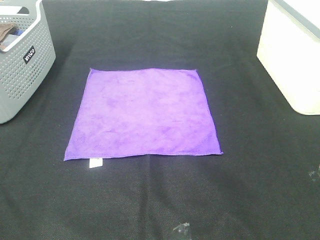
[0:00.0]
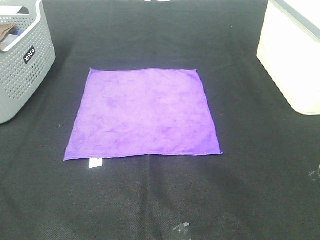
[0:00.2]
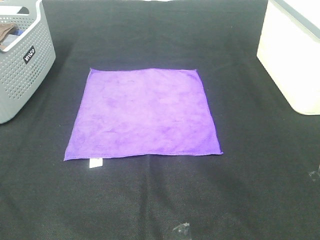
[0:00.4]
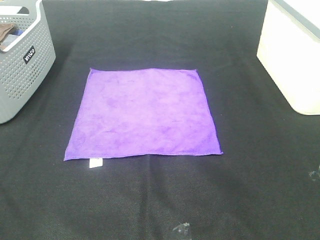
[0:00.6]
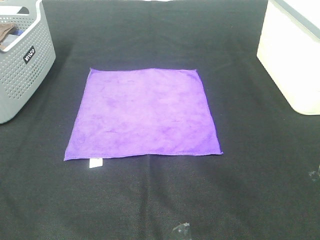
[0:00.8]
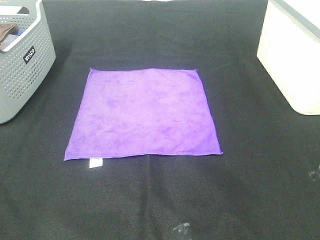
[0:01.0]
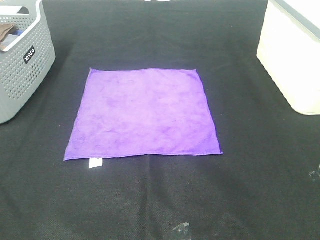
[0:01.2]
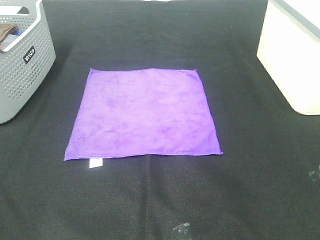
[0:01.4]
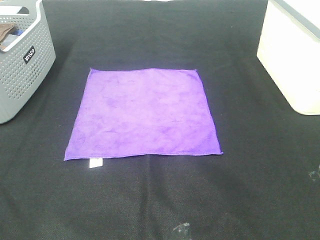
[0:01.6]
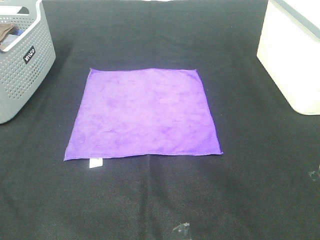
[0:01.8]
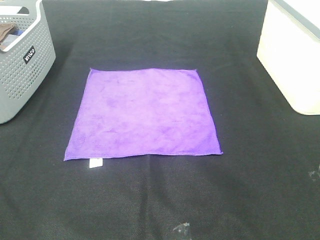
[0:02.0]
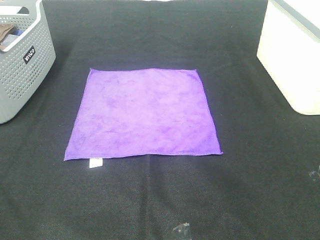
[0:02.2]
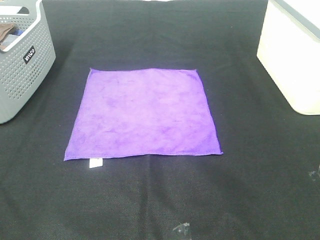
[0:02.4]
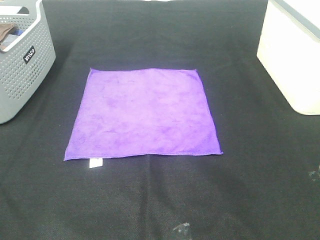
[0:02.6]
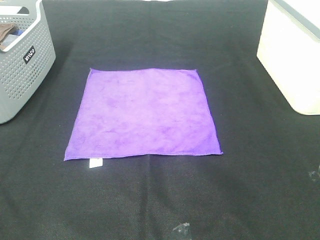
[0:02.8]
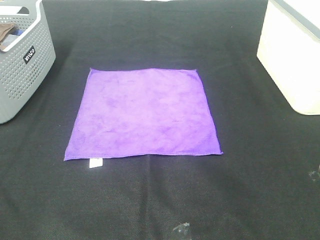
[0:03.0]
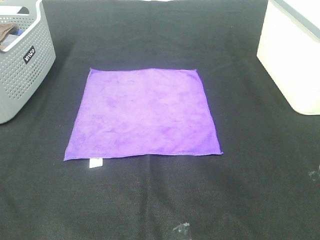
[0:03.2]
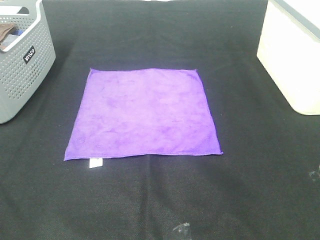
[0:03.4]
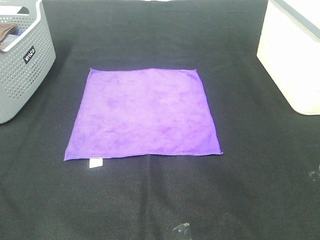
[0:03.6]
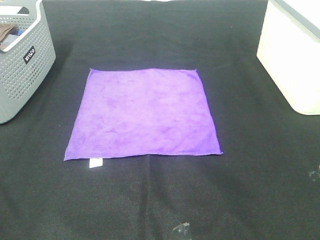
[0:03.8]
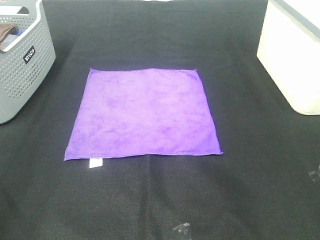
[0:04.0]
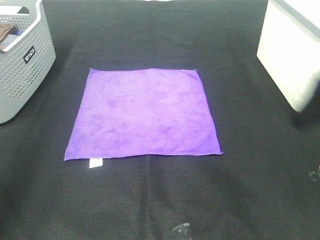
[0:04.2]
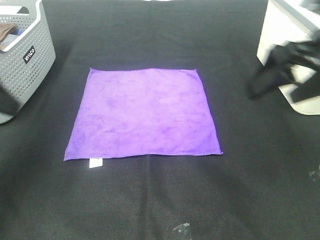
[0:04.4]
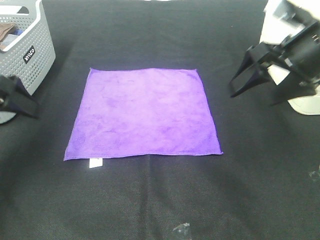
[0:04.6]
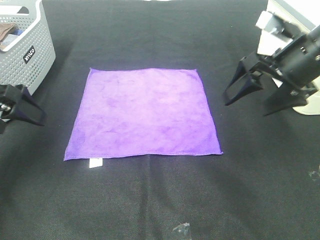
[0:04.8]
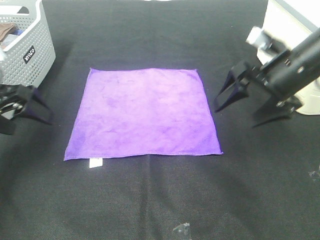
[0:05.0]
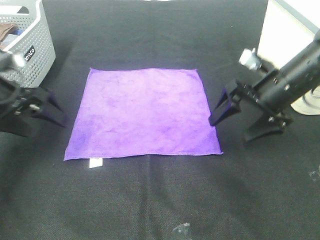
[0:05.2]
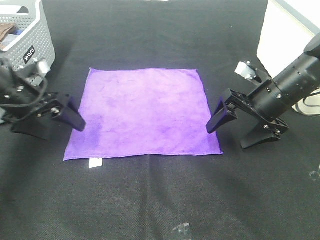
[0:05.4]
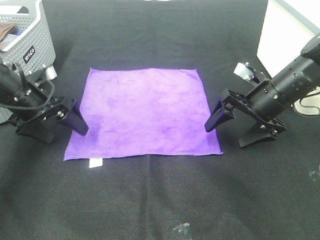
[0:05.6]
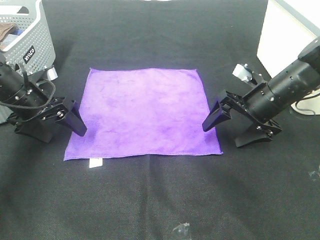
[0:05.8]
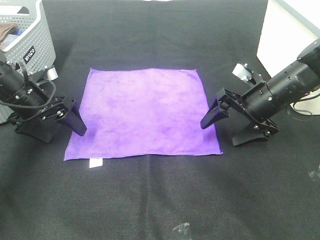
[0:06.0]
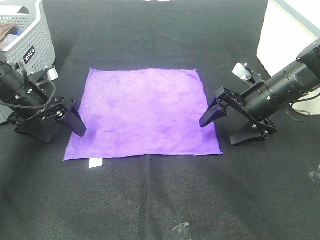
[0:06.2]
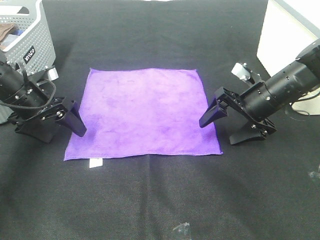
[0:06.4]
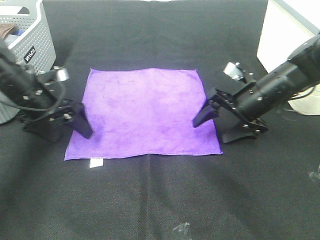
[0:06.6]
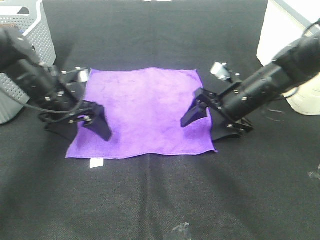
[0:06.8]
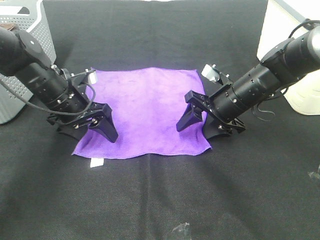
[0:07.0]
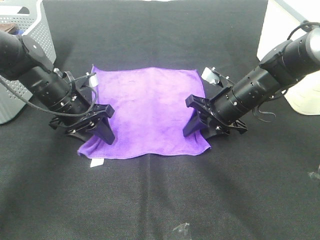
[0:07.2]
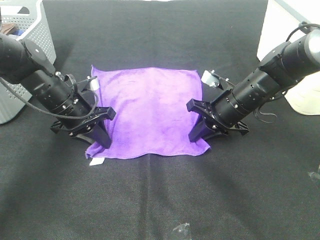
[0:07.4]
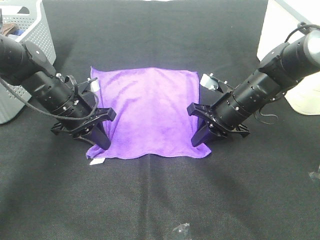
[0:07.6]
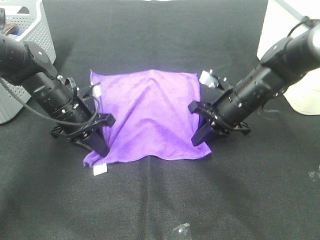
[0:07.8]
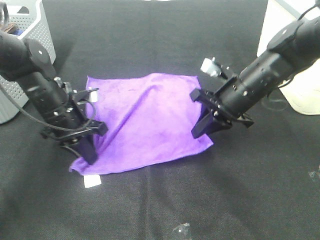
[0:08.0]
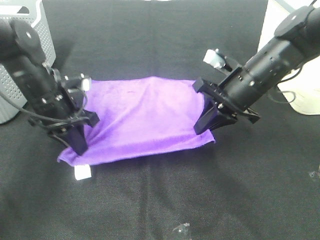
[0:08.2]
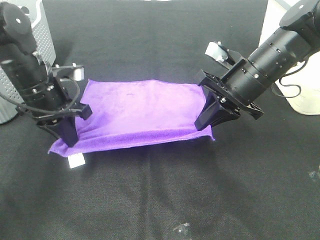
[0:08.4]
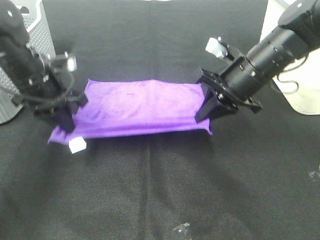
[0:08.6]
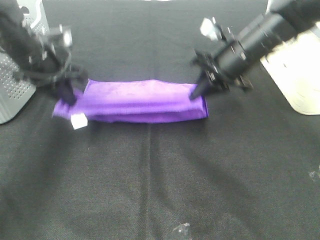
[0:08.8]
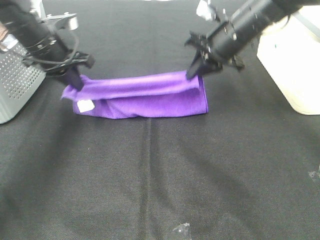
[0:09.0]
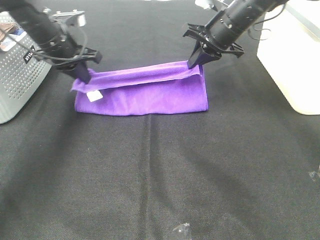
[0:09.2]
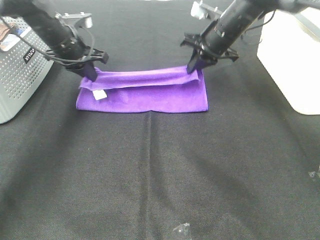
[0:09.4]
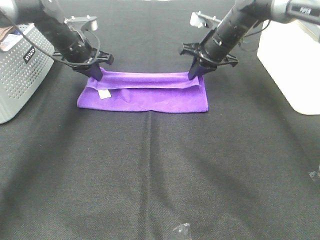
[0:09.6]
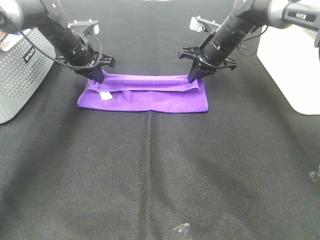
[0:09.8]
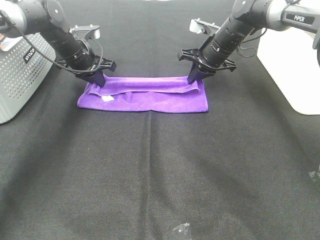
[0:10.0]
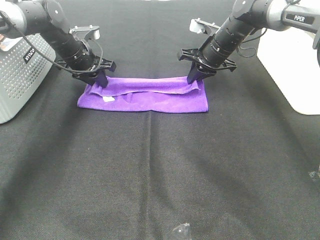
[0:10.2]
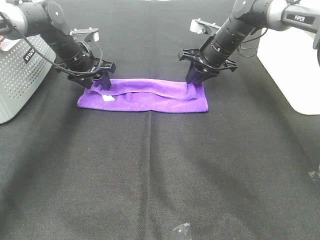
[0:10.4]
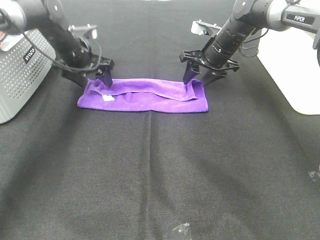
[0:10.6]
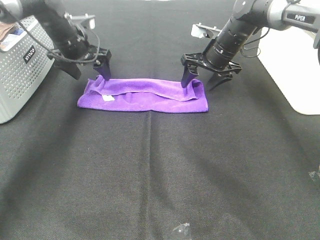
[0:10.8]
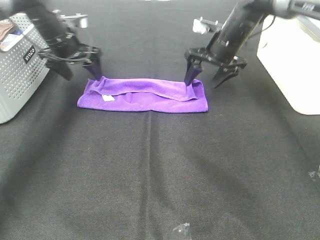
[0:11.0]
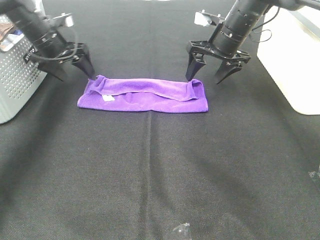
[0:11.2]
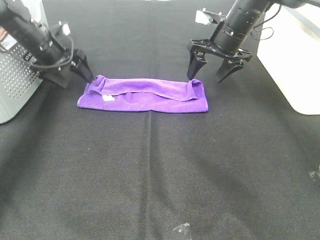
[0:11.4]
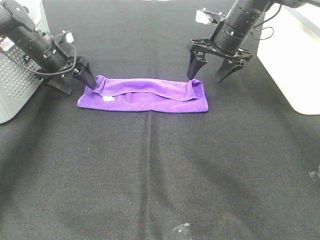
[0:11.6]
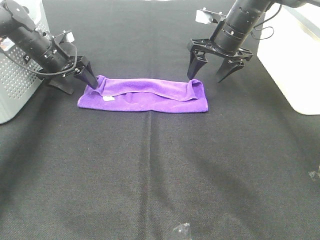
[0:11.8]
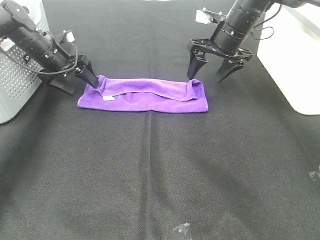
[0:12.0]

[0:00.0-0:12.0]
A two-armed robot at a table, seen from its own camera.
Task of the whole recording: Fold towels.
Step, 0:00.0 to 0:07.4: Left hand: grab the bottom left corner of purple towel.
Step, 0:00.0 to 0:07.4: Right hand: grab the bottom right corner of purple towel.
Step, 0:07.6 to 0:09.8: Left hand: fold the purple towel up.
Step, 0:07.6 to 0:09.8: Right hand: fold the purple towel up.
0:00.0 to 0:03.0: The two grippers keep their place.
0:03.0 to 0:04.4: The two grippers go approximately 25 cm forward.
0:04.4 to 0:06.0: The grippers both shift downward and forward by approximately 20 cm.
0:06.0 to 0:07.6: The right gripper moves to the left, some 5 cm, and closes. The left gripper moves to the right, roughly 10 cm, and closes.
0:07.6 to 0:09.0: Both grippers move upward and forward, approximately 15 cm.
0:09.0 to 0:10.4: The two grippers go about 10 cm forward and downward. The left gripper opens.
0:10.4 to 0:12.0: The left gripper goes roughly 5 cm to the left; the right gripper shifts by some 5 cm, and opens up.

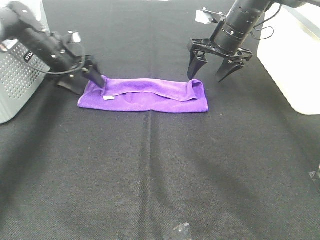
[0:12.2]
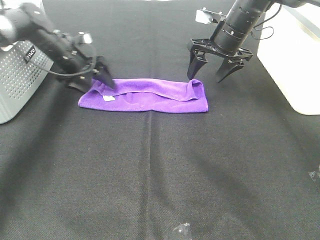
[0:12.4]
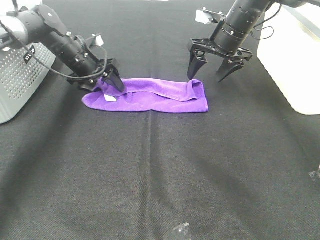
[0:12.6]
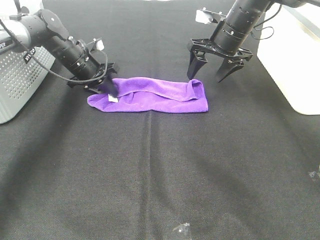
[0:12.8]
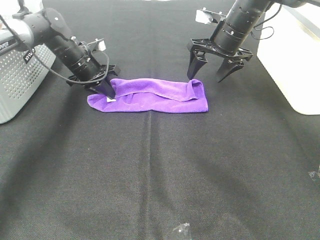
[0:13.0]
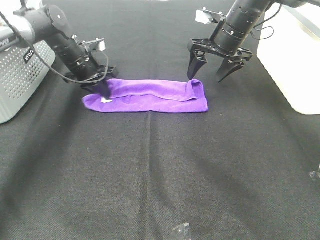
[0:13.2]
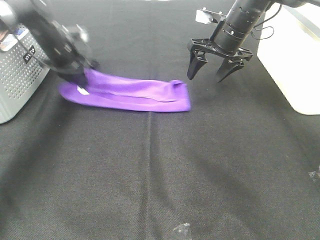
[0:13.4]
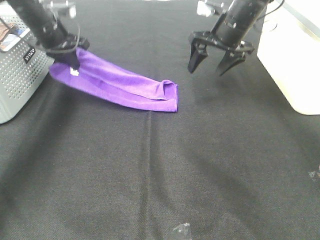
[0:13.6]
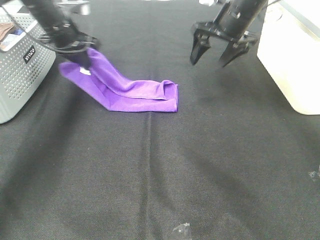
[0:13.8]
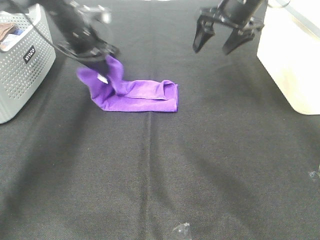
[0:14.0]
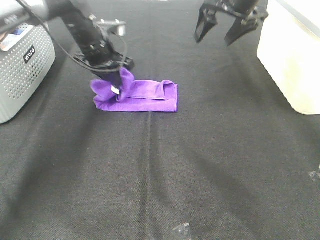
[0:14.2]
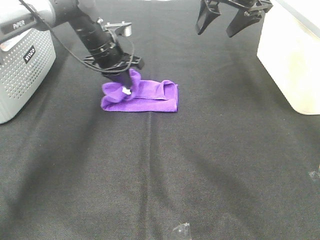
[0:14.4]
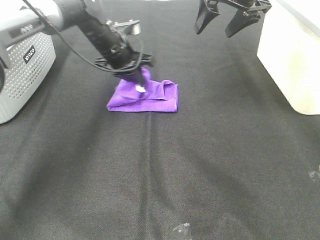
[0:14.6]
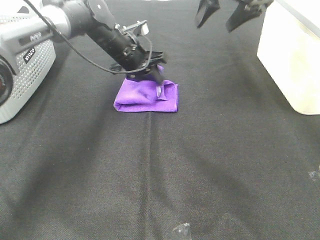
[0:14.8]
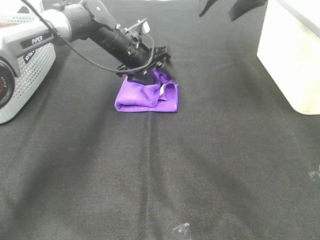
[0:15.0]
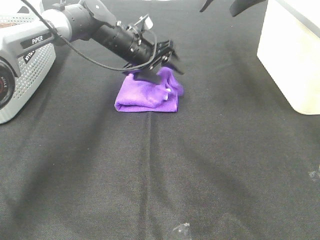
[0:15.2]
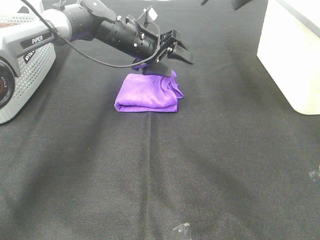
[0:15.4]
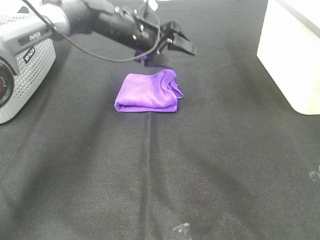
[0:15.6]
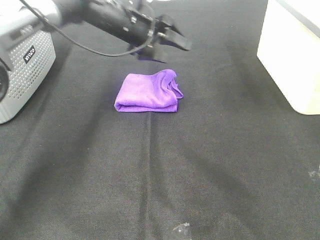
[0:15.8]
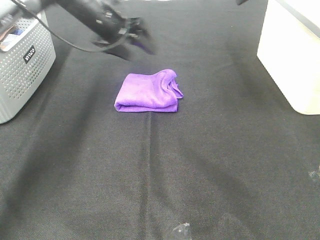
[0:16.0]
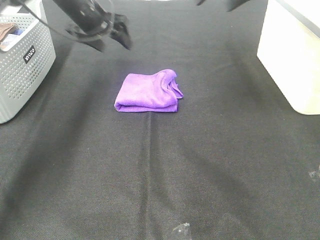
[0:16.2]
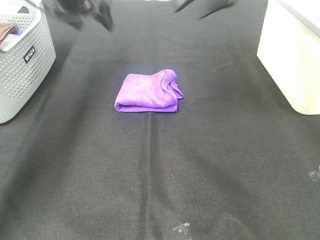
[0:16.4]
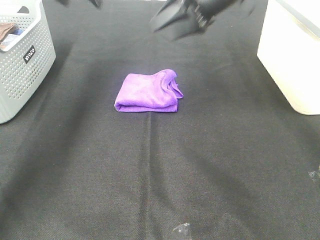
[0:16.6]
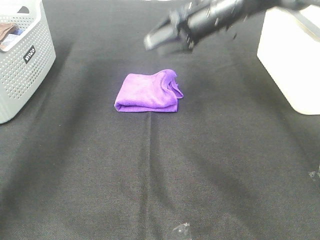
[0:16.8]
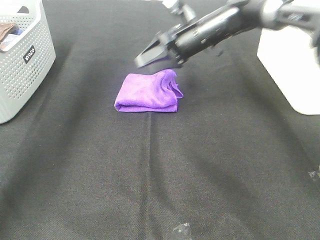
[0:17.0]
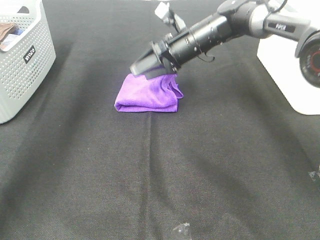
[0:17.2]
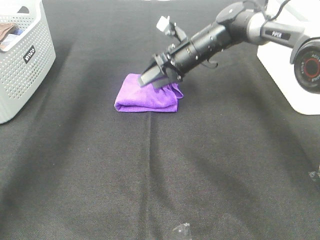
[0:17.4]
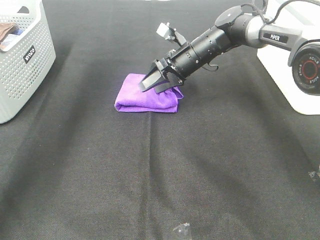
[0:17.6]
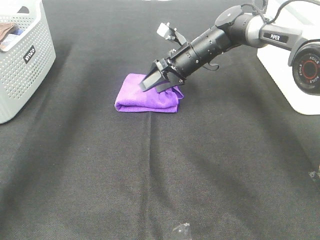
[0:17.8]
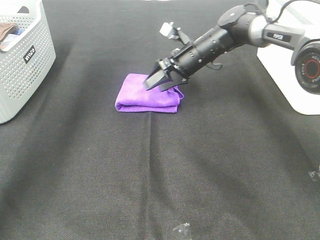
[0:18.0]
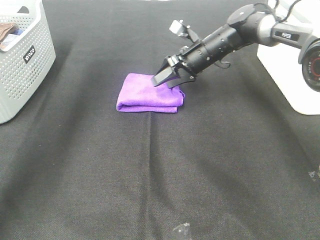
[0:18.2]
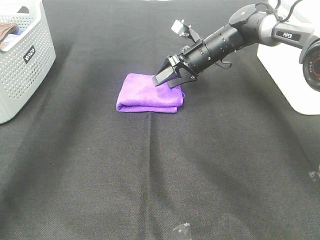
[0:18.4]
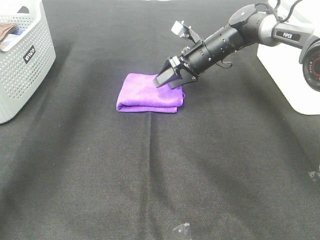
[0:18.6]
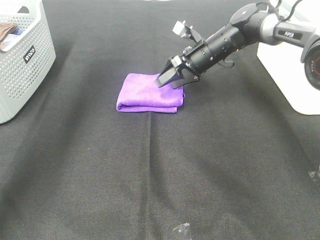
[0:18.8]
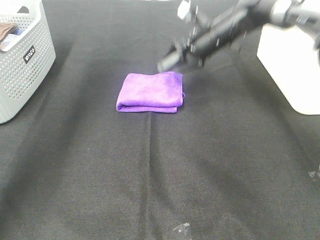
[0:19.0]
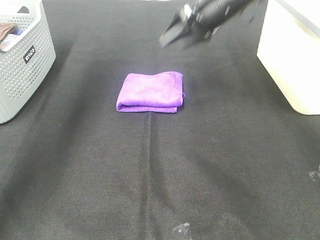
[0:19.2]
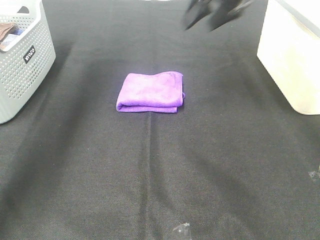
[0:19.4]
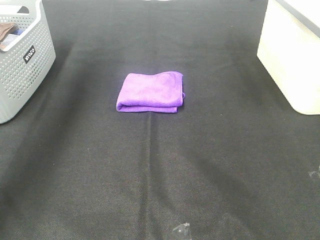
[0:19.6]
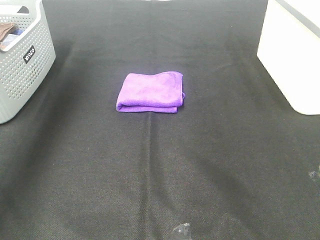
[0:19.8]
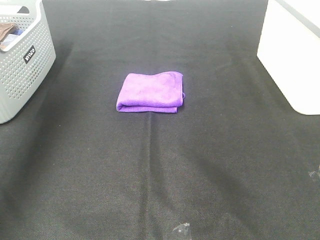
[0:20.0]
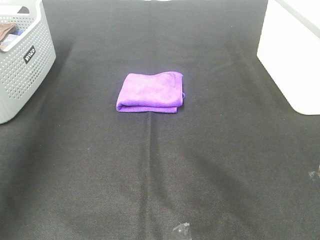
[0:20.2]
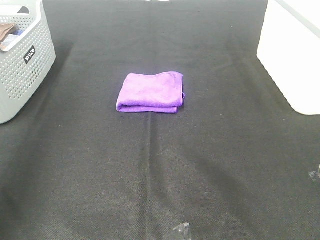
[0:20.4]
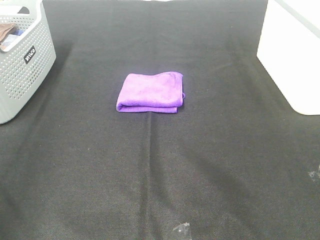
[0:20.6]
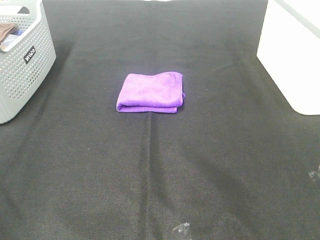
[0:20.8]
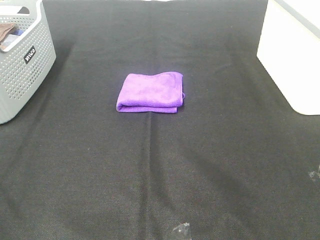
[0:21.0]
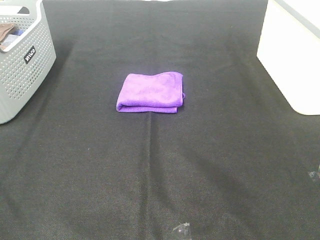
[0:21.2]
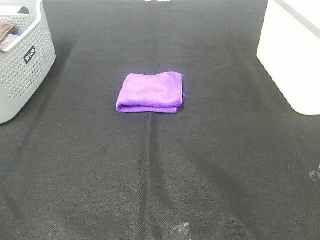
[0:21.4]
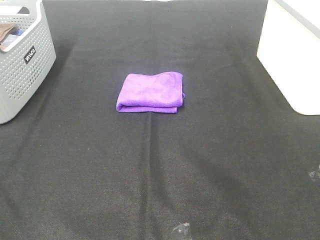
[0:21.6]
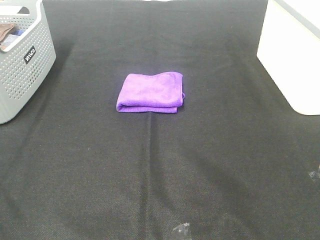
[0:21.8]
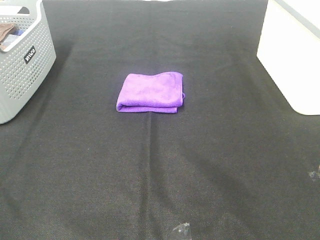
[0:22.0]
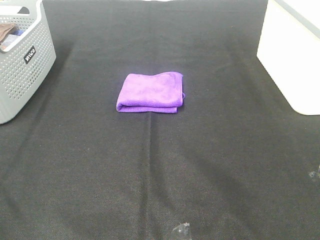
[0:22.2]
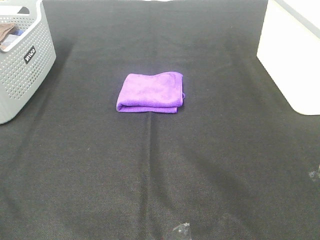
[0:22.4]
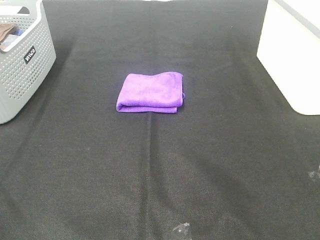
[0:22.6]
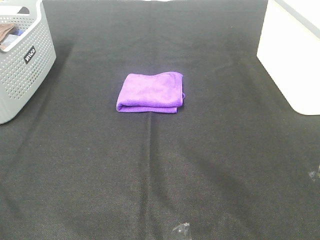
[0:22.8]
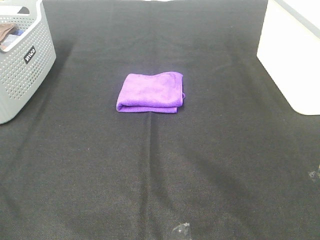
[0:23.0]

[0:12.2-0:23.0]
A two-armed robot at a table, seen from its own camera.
Task of the whole recording: Fold towels.
Step, 0:12.2 to 0:14.6: Left hand: fold the purple towel from left to right.
Step, 0:14.8 to 0:17.6: Right hand: adjust the purple towel.
0:12.2 to 0:13.8: The left gripper is displaced upward by about 10 cm, and closes its fingers.
0:13.8 to 0:15.2: The left gripper travels to the right by about 15 cm, and opens up. The right gripper moves upward, some 10 cm.
0:15.2 to 0:16.8: The right gripper shifts about 15 cm downward and to the left. The left gripper heads upward and to the left, covering about 25 cm.
0:16.8 to 0:18.4: The right gripper heads downward, covering roughly 10 cm.
0:18.4 to 0:20.0: The left gripper travels backward, to the left and upward by about 20 cm. The right gripper shifts approximately 40 cm upward, backward and to the right.
0:20.0 to 0:21.4: The left gripper goes roughly 35 cm backward.
0:21.4 to 0:23.0: The two grippers keep their place.
